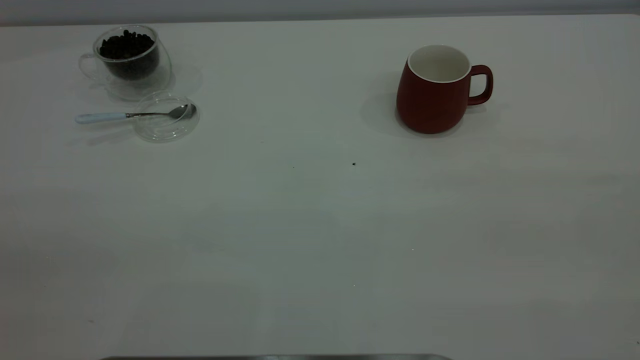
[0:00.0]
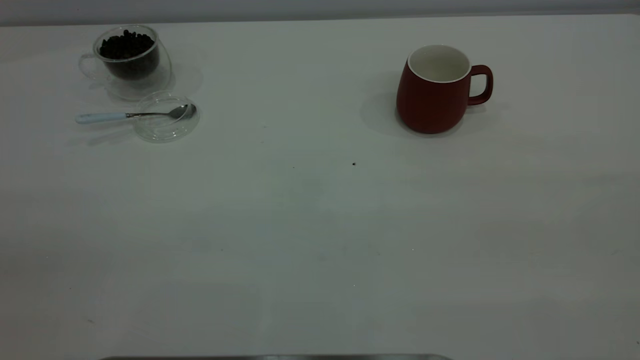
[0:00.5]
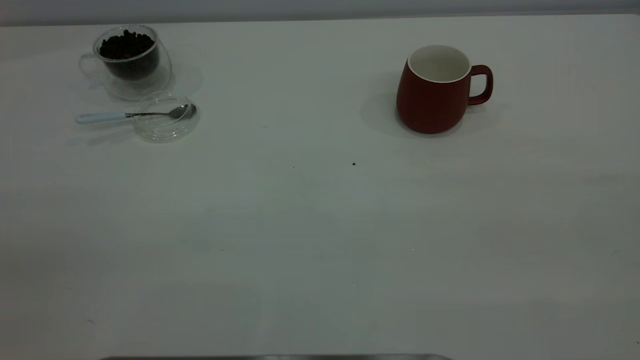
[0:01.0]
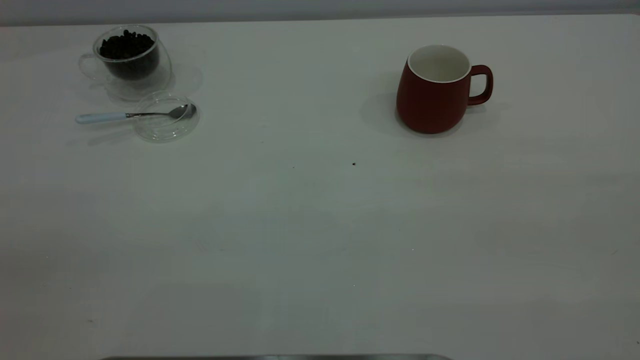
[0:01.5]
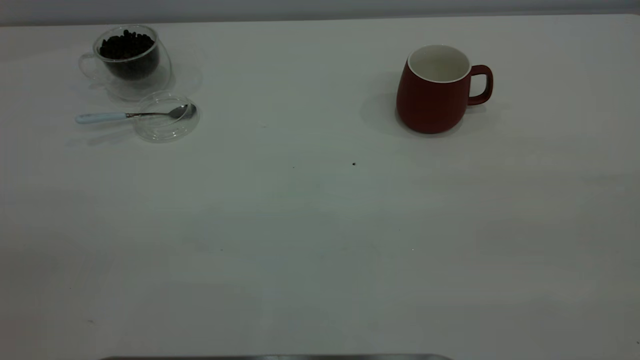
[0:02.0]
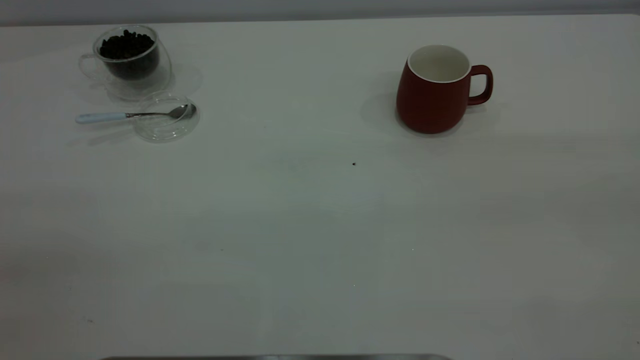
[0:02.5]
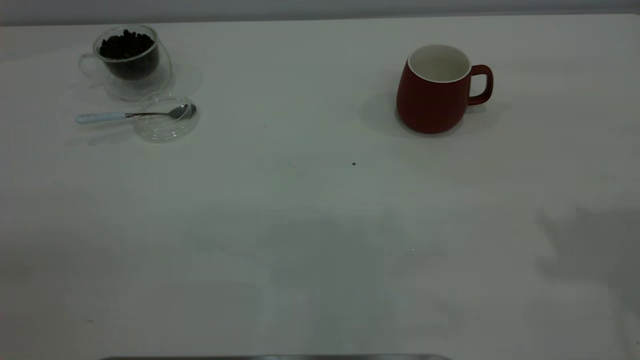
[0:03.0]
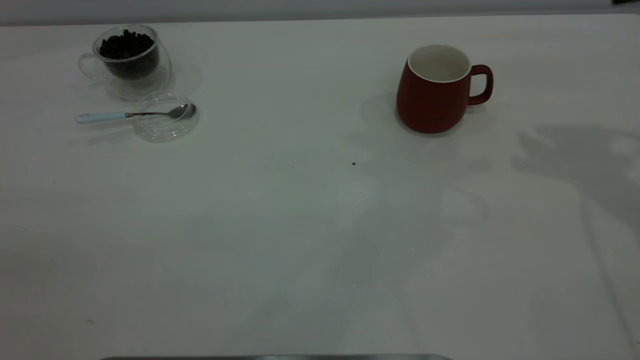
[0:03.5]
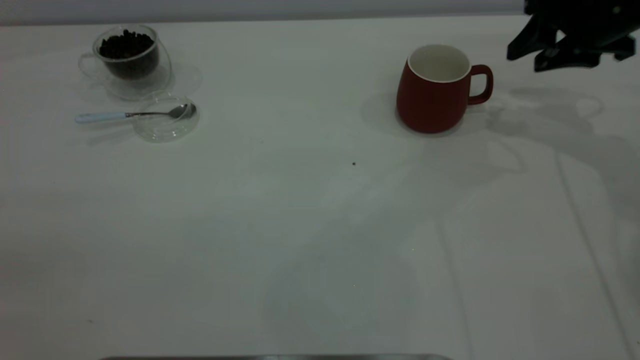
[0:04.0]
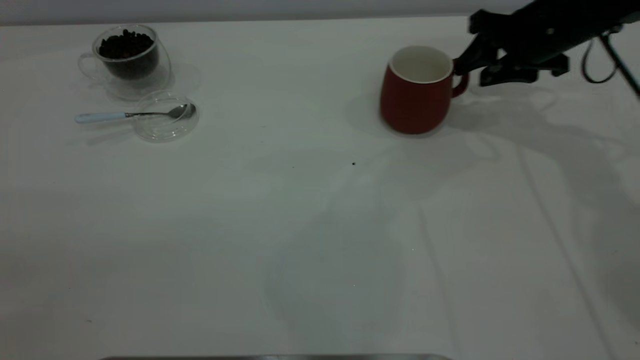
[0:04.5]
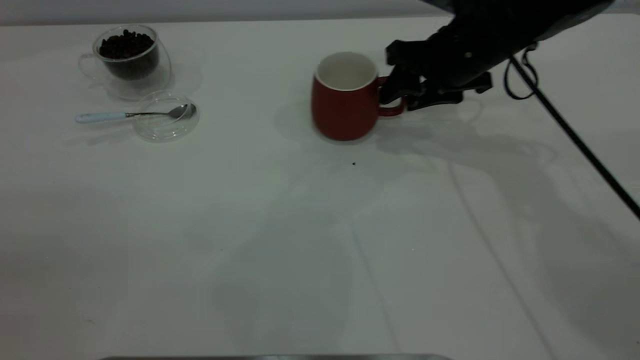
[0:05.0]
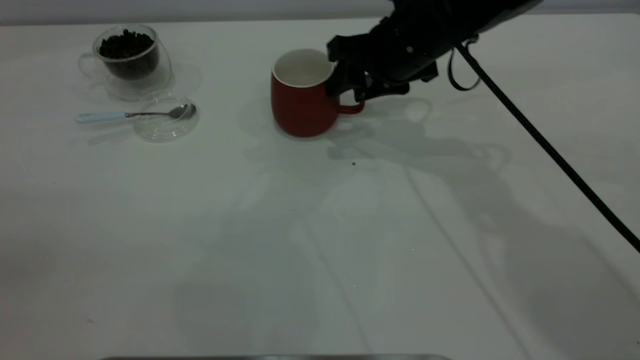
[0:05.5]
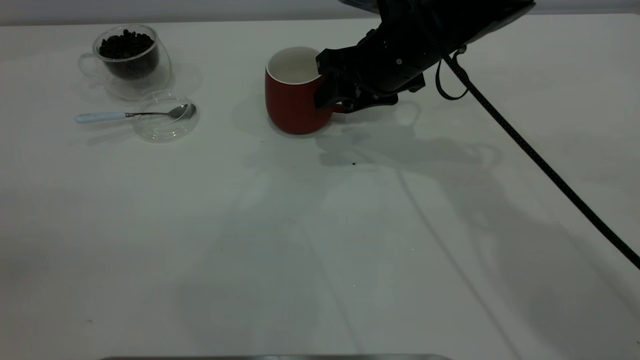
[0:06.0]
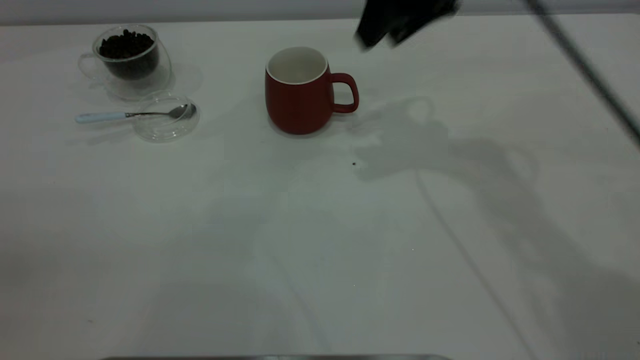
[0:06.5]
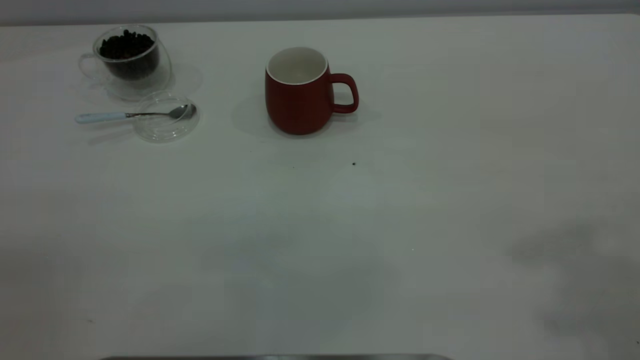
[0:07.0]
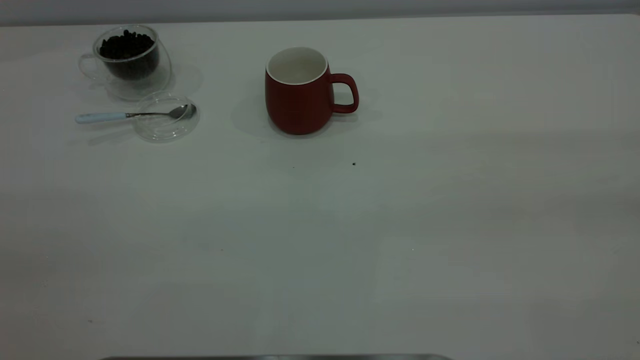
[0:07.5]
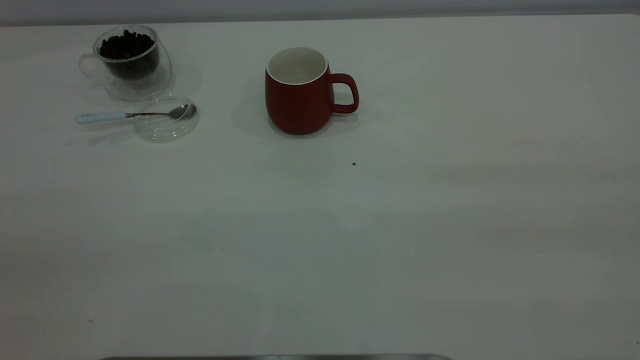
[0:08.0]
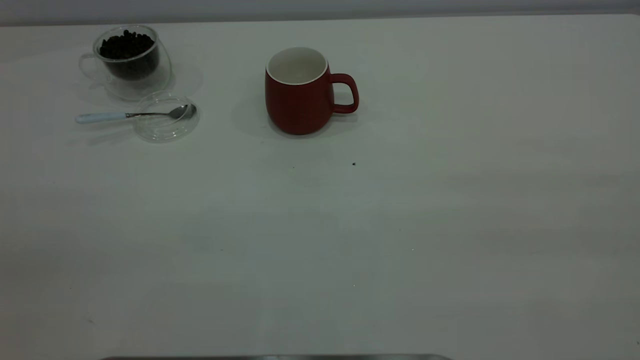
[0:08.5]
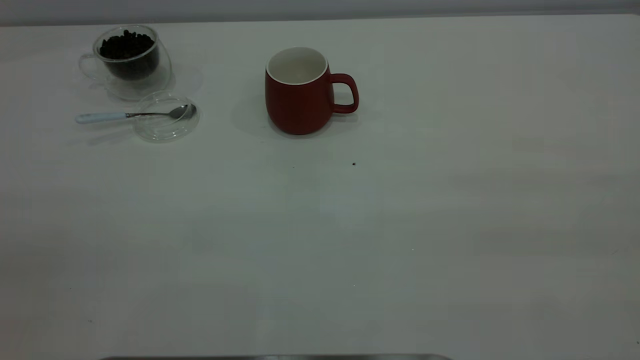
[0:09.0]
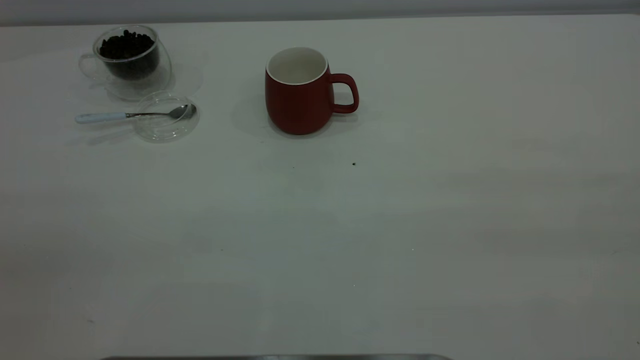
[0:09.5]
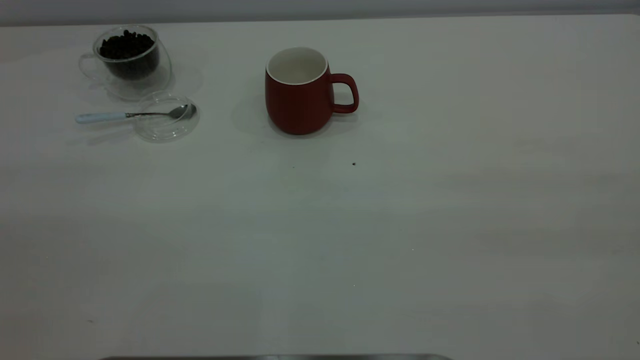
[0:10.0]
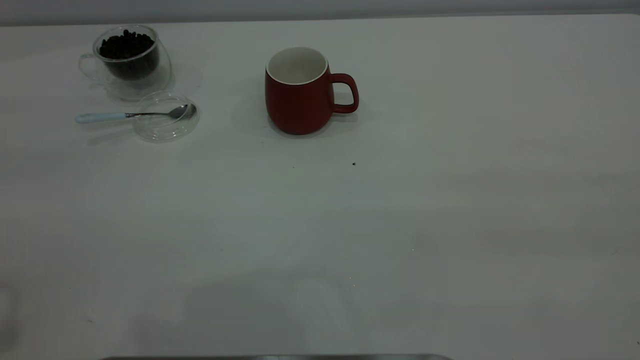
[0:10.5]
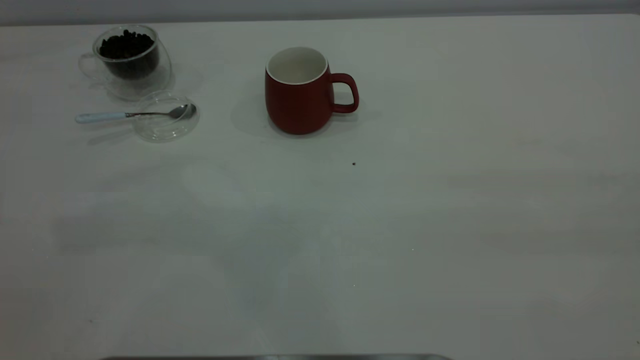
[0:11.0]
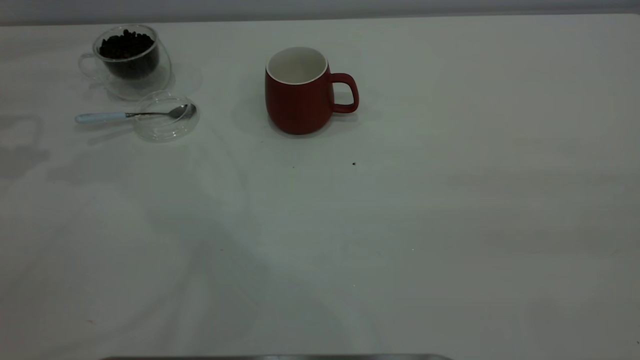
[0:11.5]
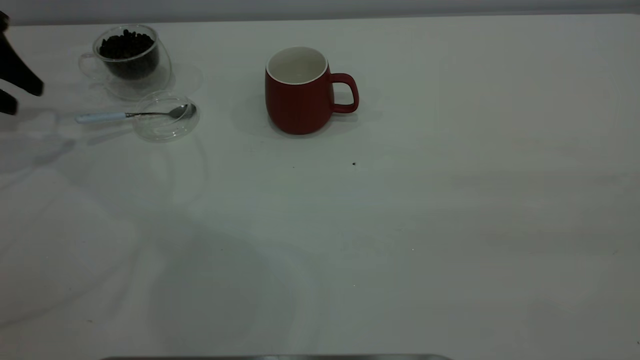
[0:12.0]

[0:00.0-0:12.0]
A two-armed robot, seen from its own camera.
Task of the whole recording: the right gripper place the red cup in the center of the table, the left gripper take the blue spoon from the cup lid and scoop out the coffee beans from the coffee cup and put them into the red cup, the left gripper put the spoon back into the cup lid.
Step, 0:00.0 to 0:06.0: Move the cup to the center of view.
0:00.0 to 0:02.0: Neither gripper changes place.
0:02.0 to 0:04.0: The right gripper heads forward and downward, covering about 50 cm.
0:04.0 to 0:06.0: The right gripper moves to the left, about 20 cm.
0:06.0 to 0:08.0: The right gripper travels backward, upward and to the right by some 50 cm.
0:10.0 to 0:12.0: The left gripper shifts roughly 50 cm forward and downward.

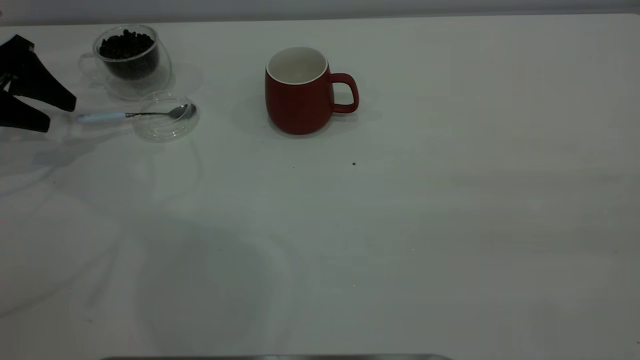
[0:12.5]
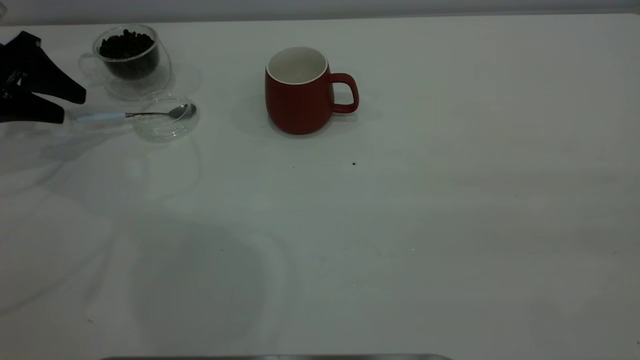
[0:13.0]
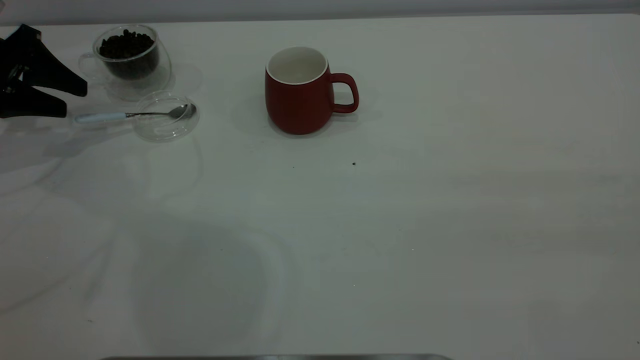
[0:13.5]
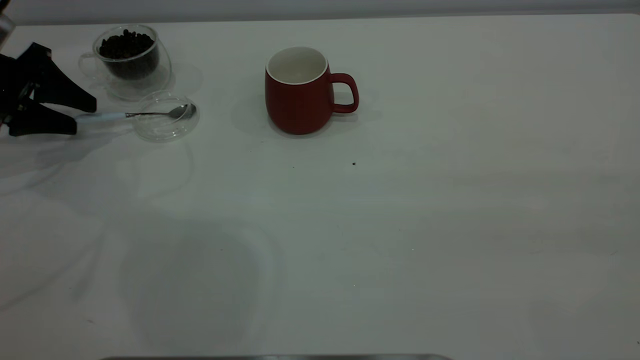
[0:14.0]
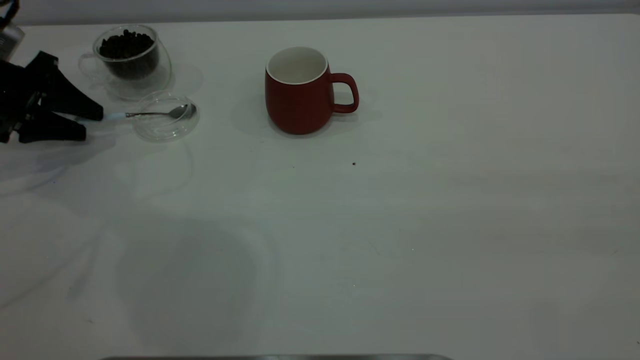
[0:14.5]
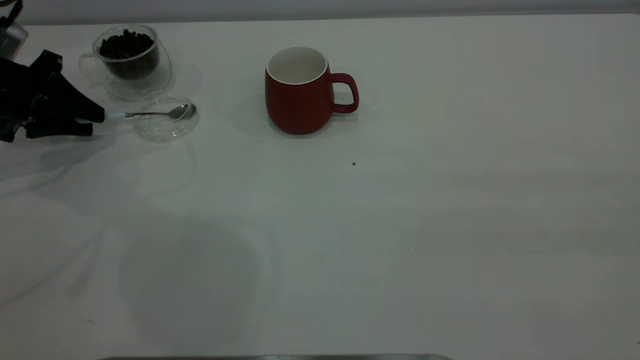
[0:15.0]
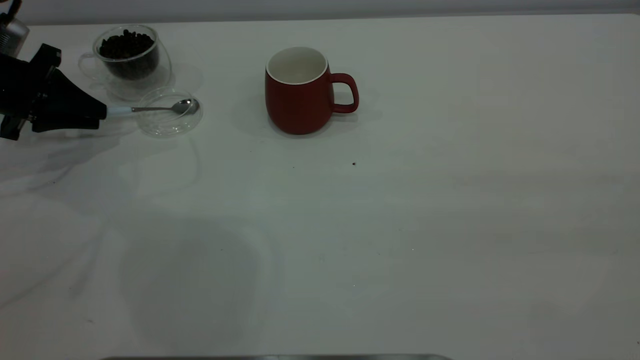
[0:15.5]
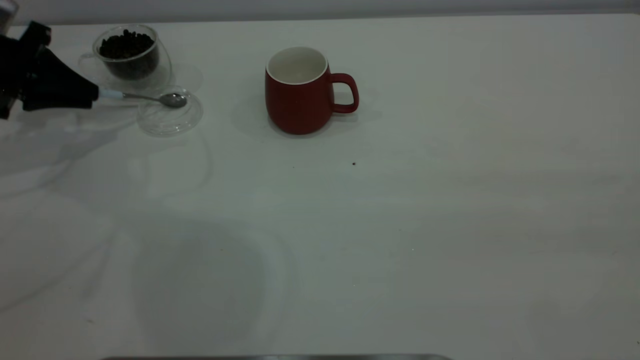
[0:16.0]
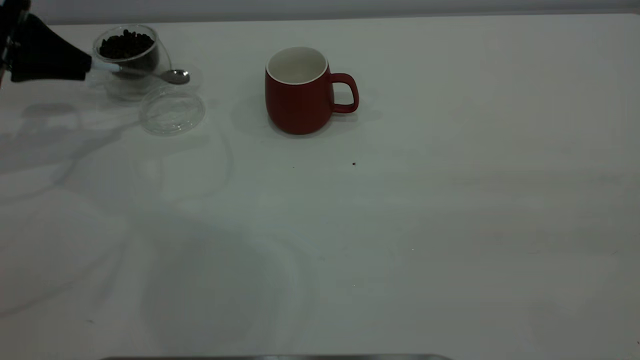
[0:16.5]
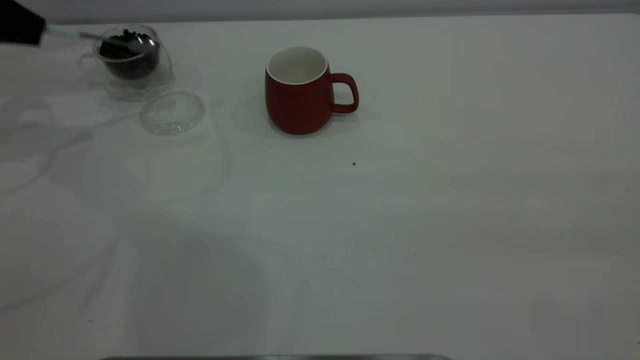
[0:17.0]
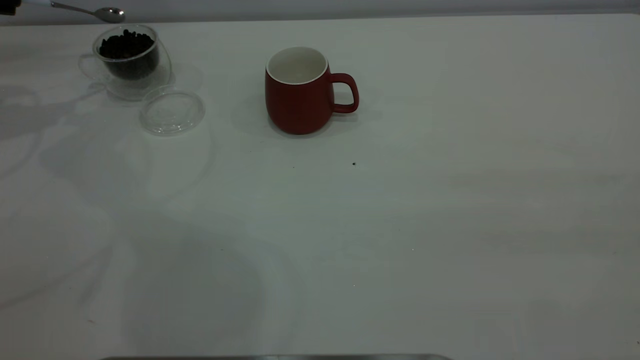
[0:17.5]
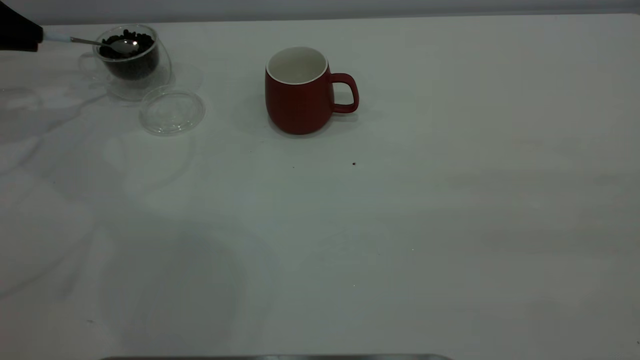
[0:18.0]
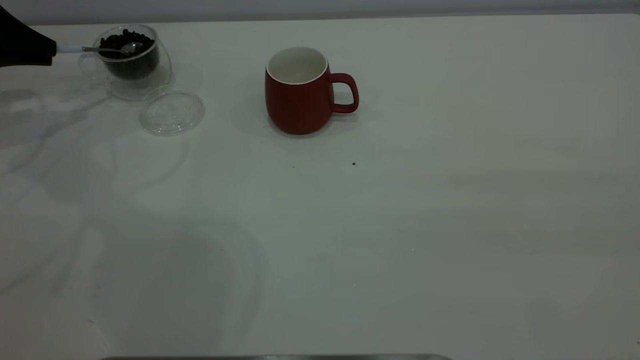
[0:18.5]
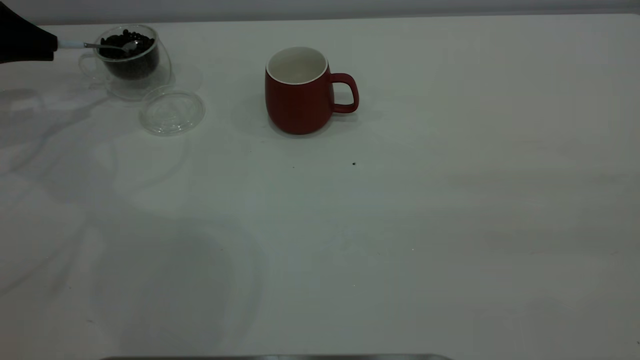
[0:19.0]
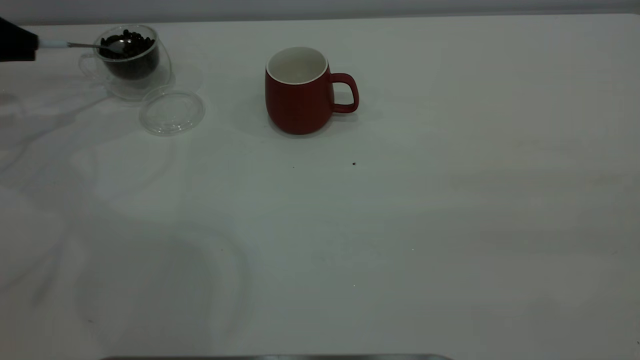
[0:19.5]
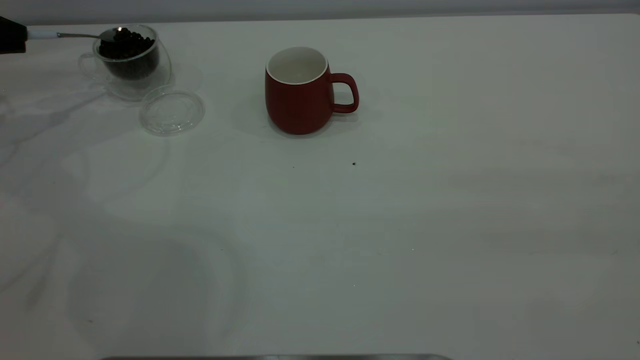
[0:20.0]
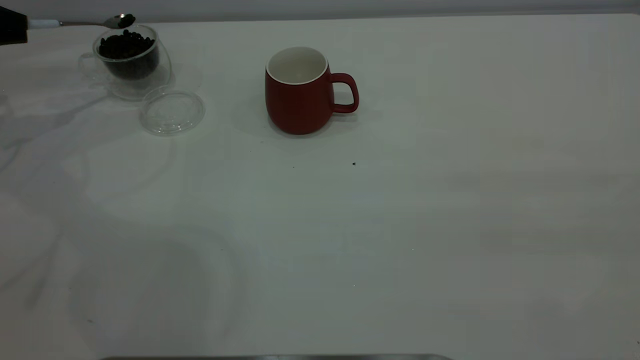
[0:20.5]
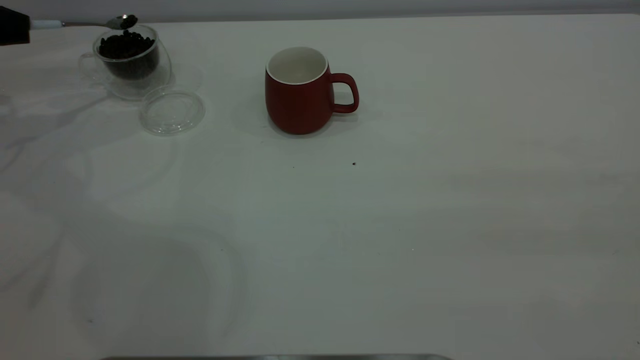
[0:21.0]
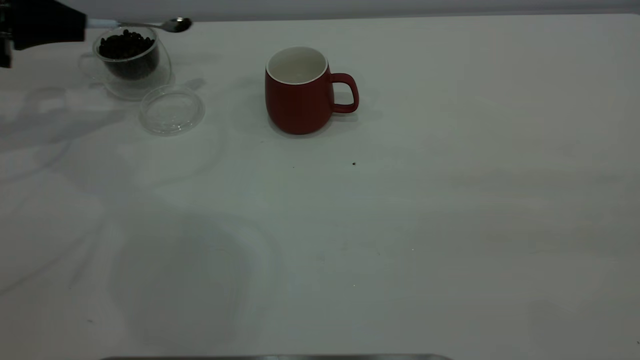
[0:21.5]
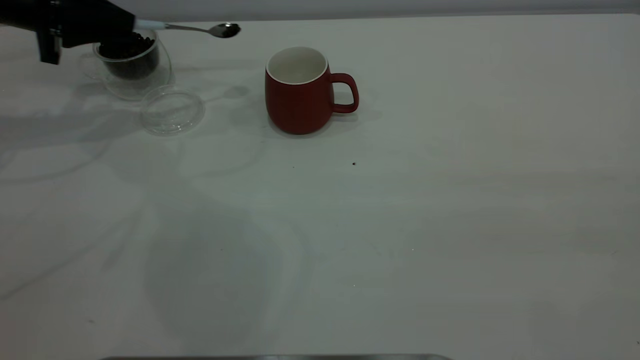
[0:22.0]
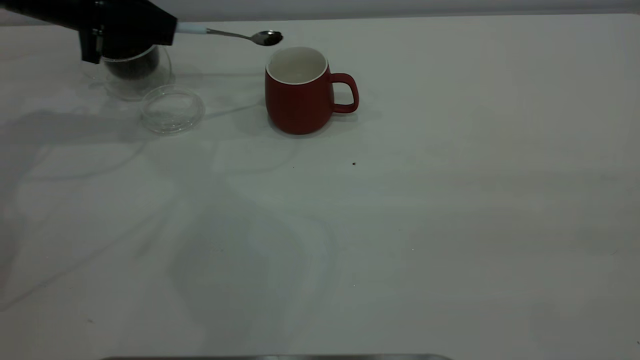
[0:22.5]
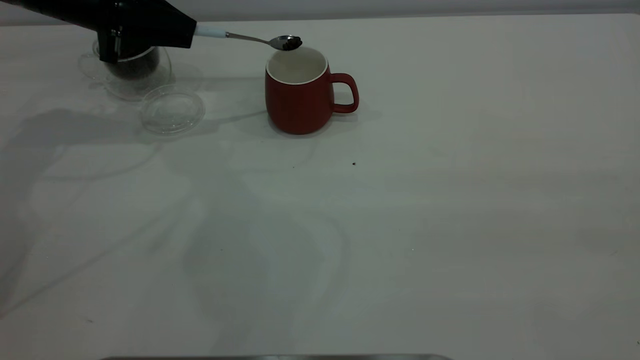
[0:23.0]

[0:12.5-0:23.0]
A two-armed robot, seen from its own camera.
Task of the whole recording: the right gripper place the red cup in the center of the table, the left gripper take the blue spoon from the cup lid and scoop out the coffee beans from the coffee cup and put them into the red cup, the left gripper put the spoon back into the cup lid.
Step, 0:12.5 to 0:16.0: Pick up the spoon.
0:12.5 to 0:14.5: There are only small adjustments of the grippers.
0:14.5 to 0:16.5: The left gripper heads upward, covering some 5 cm, and closes.
0:16.5 to 0:19.0: The left gripper travels to the left by approximately 5 cm.
0:19.0 to 0:21.0: There are only small adjustments of the grippers.
0:21.0 to 0:23.0: The left gripper moves to the right, about 20 cm.
